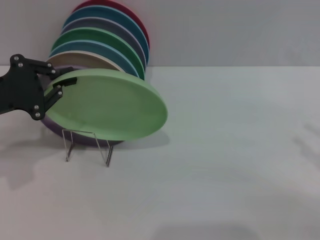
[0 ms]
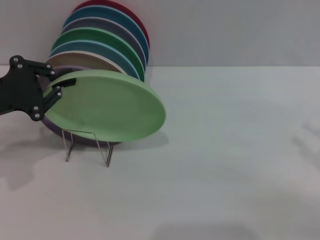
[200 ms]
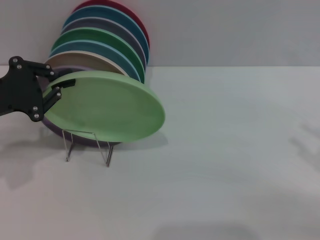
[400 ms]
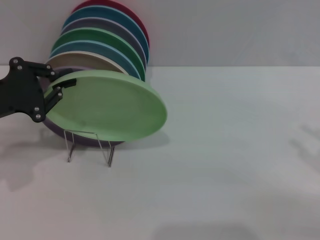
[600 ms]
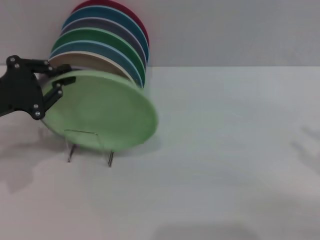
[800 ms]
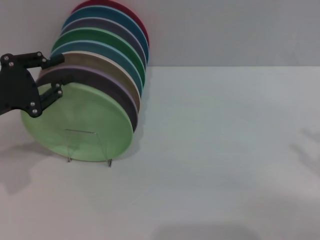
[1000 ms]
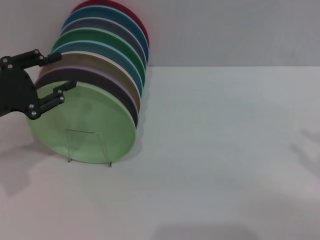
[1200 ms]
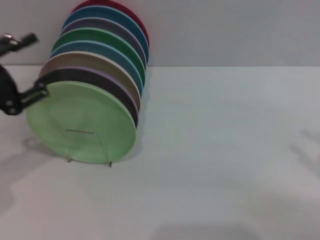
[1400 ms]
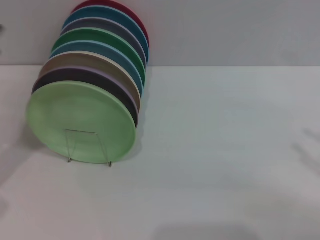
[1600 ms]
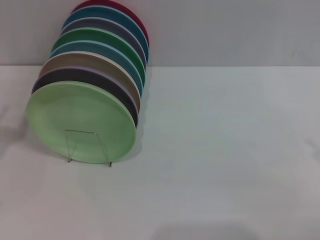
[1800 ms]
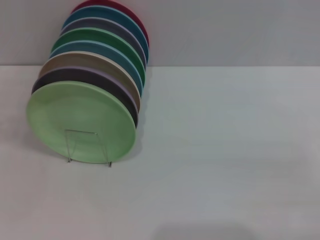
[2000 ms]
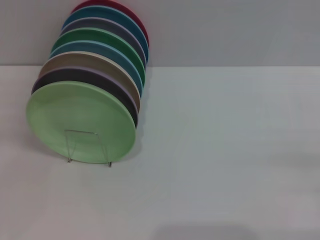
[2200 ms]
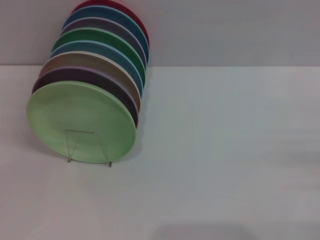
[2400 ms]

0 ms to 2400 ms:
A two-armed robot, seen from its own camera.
Task of the whole recording: Grip the plate with one hand, pass it to the other, then set it on the shelf.
0 ms to 1200 ms: The grippers make only small movements.
1200 ms to 2400 ms: The left gripper travels backward, downward and to the left by some 15 cm, and opens.
